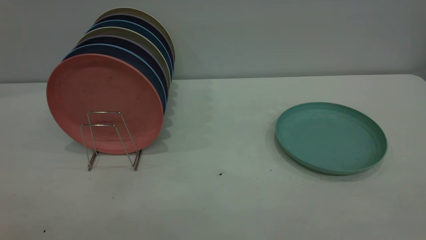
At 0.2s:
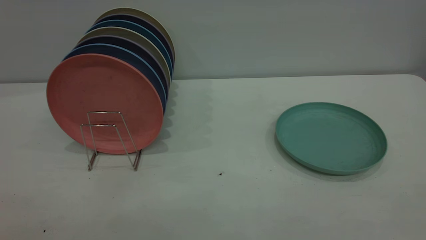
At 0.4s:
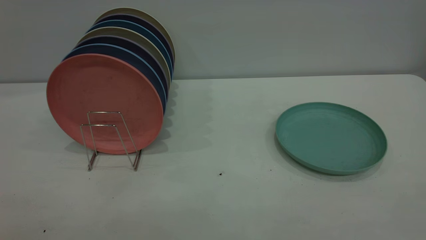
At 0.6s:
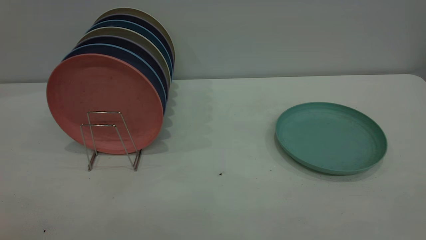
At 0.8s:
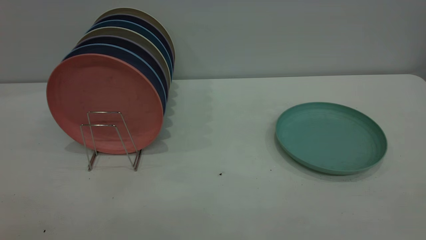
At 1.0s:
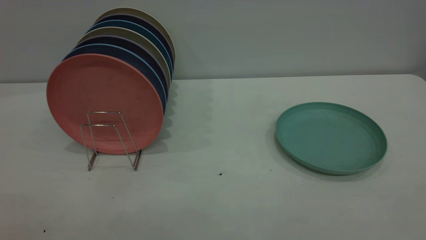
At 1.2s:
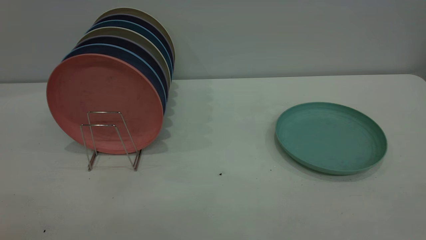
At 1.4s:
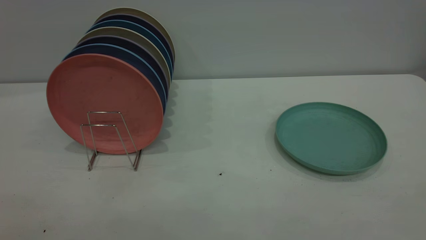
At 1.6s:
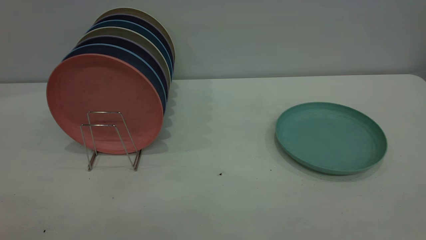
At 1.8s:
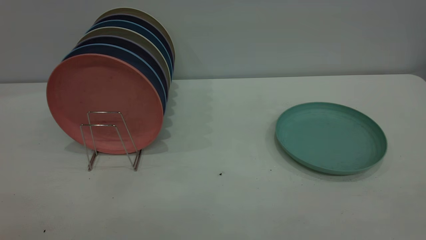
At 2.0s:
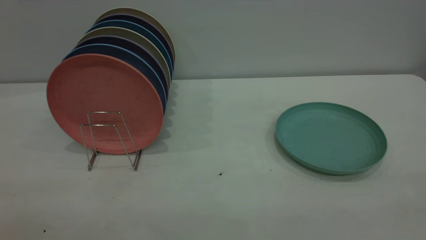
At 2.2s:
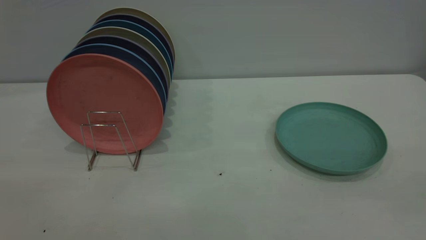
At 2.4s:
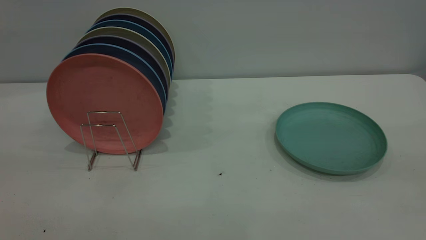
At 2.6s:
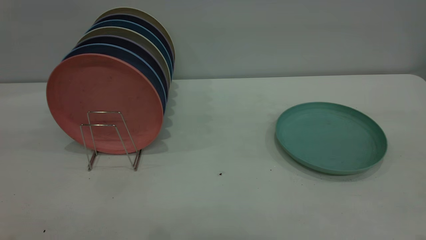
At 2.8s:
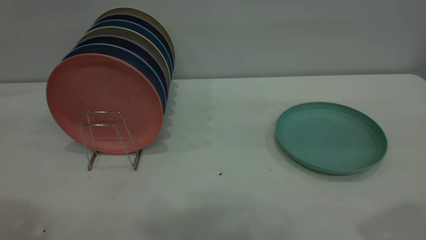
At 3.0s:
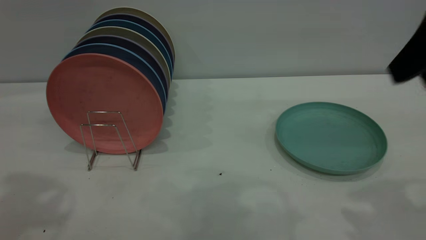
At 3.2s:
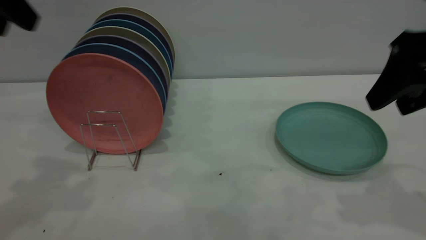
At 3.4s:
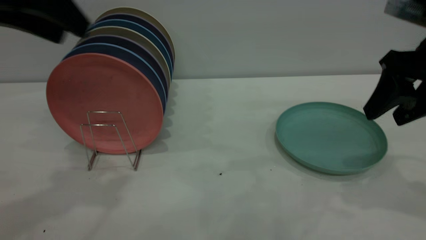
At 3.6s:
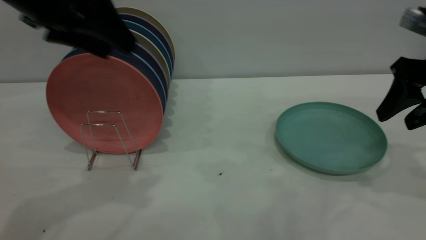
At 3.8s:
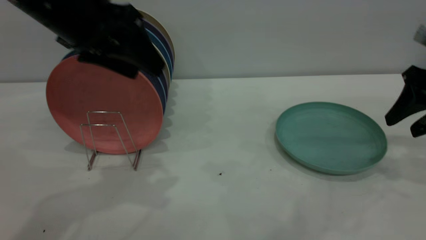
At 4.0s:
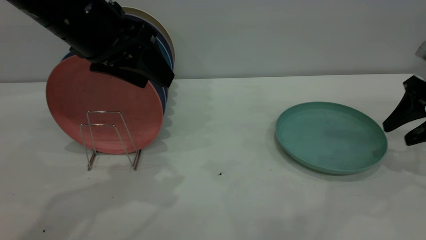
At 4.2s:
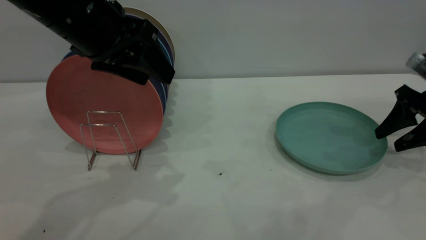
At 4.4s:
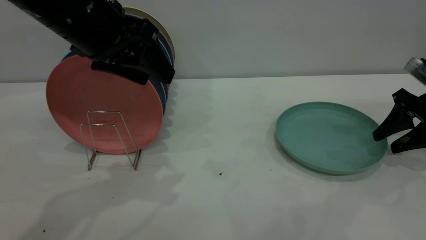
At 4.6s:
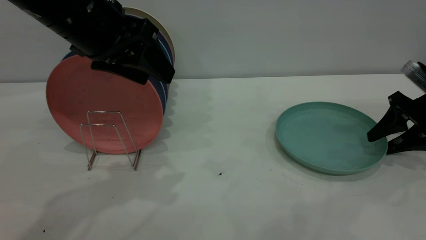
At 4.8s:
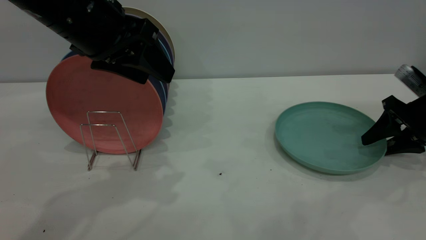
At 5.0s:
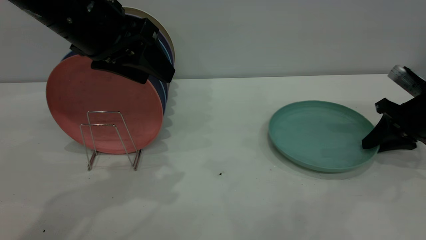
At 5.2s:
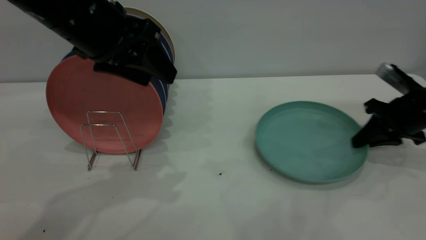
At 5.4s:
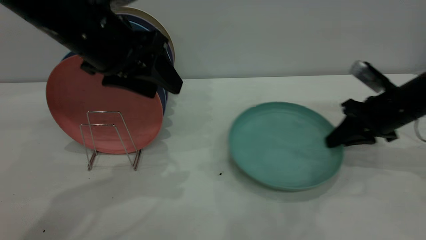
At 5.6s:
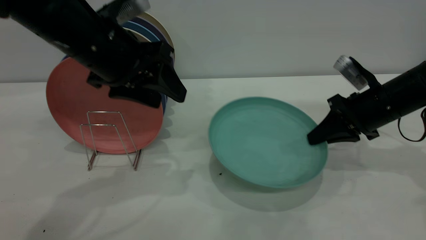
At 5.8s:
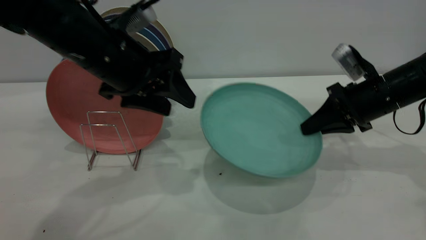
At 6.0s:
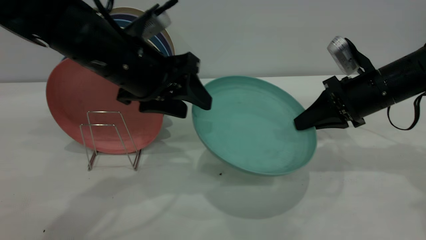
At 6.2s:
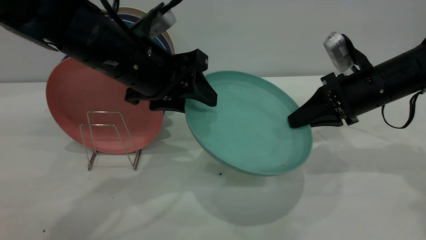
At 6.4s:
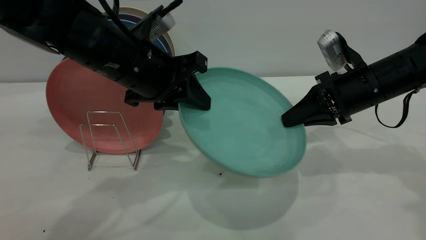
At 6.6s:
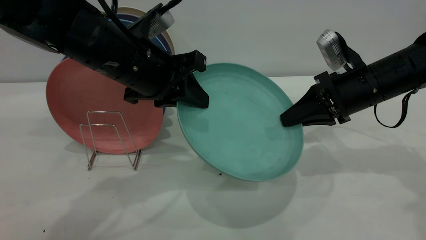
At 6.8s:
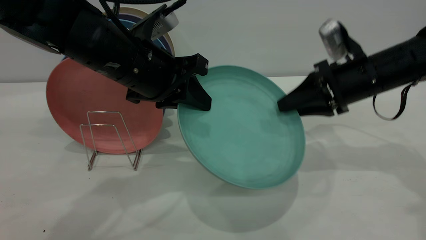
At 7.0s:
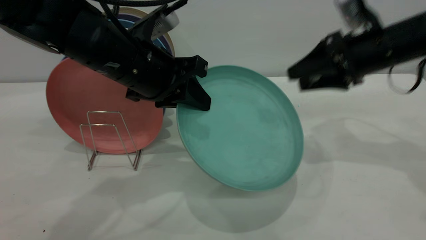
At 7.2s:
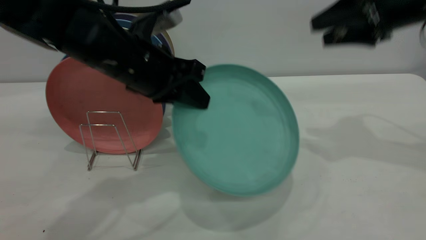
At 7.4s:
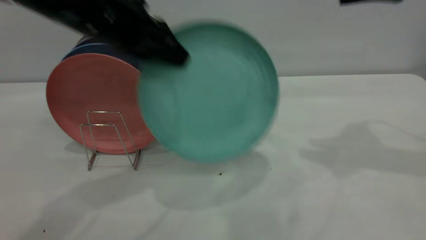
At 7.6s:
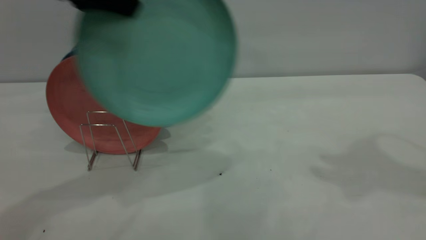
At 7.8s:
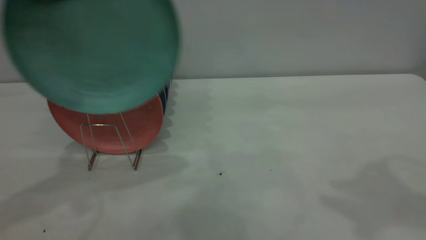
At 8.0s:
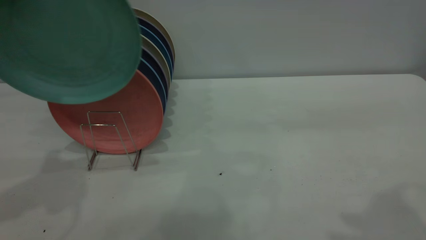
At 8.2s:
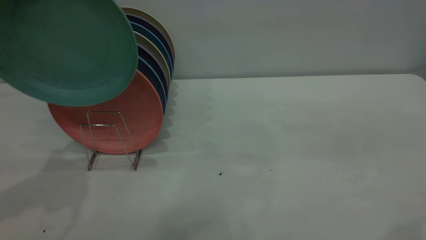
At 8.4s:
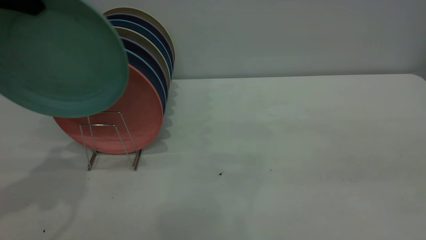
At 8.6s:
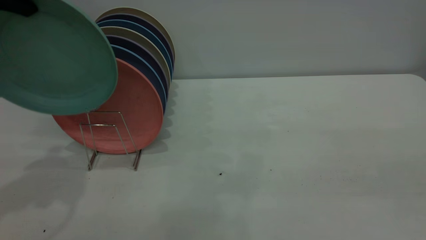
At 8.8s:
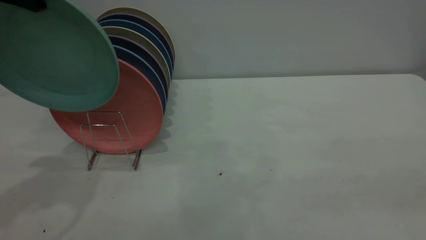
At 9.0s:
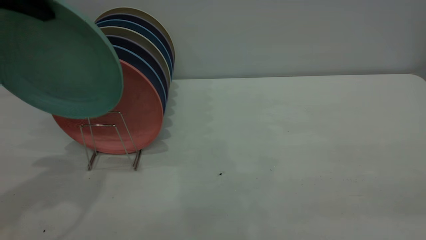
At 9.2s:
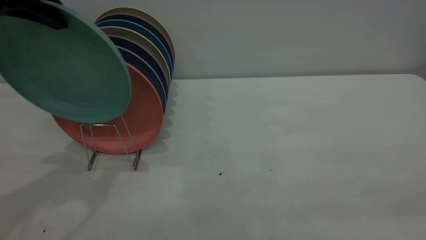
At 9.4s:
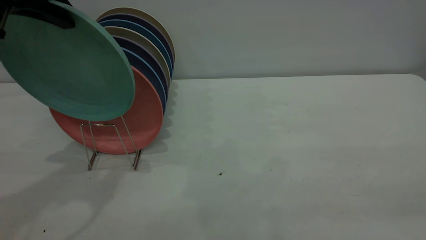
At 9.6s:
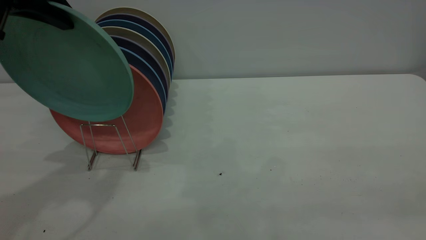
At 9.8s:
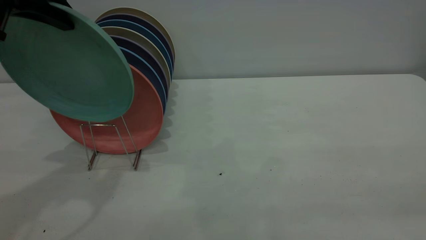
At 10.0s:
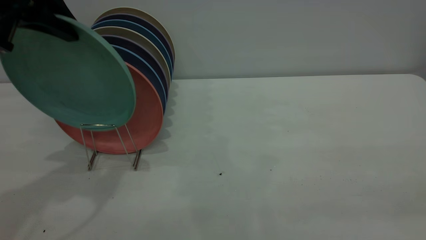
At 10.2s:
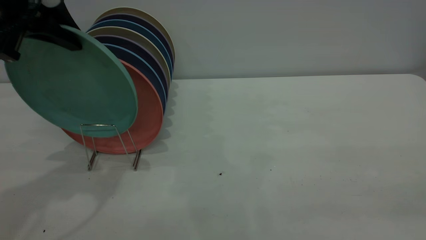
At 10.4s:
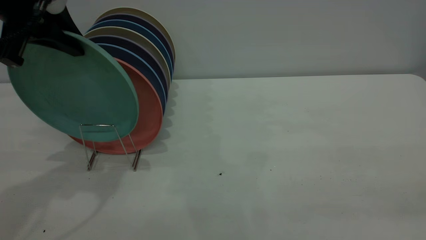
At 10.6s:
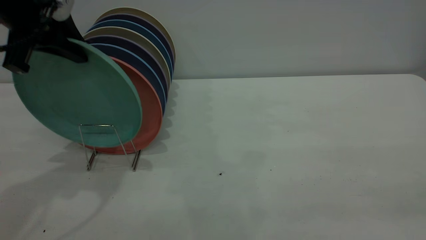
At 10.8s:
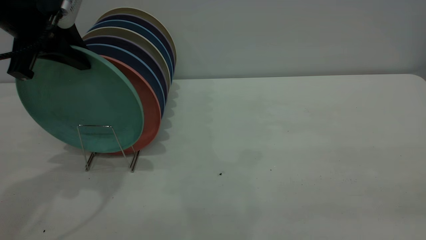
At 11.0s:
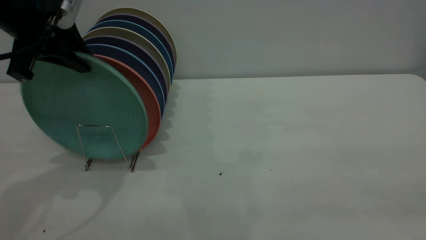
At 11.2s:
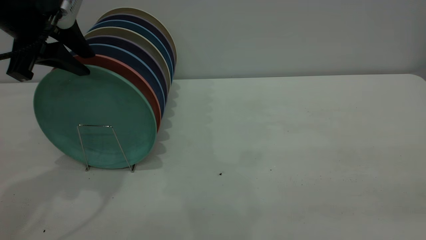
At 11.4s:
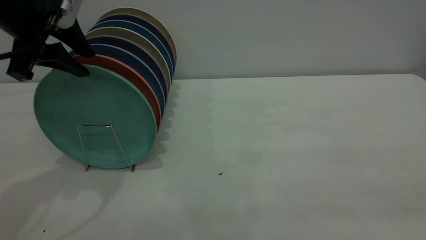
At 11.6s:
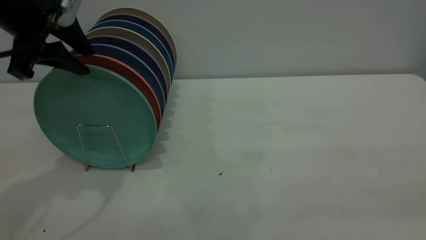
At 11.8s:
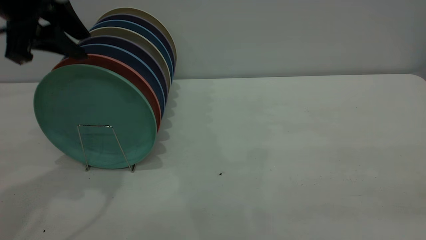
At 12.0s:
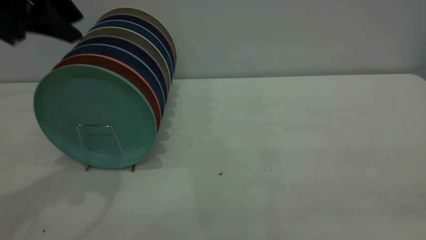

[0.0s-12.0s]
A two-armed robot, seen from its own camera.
Task of the whole recording: the right gripper grasp the green plate, the right gripper pass the green plate to the left gripper, and the left gripper place the green plate on the plate rack.
Step, 0.0s to 5.4s: Pick up the plate with the right gripper.
Step, 5.6s to 7.6s: Pass the plate from the right gripper to the left gripper.
0.0s to 1.6s: Both grippers stay put.
1.6s to 3.0s: The right gripper shifts about 25 cm forward, and opens.
3.0s to 4.4s: The left gripper travels to the right, downward and forward by approximately 15 cm; the right gripper goes approximately 25 cm downward, forward and to the right.
4.4s to 6.0s: The left gripper heads downward, covering approximately 5 cm. Meanwhile the right gripper goes roughly 15 cm to the left, and closes up.
6.0s to 7.6s: The left gripper moves upward and to the left, approximately 15 cm, and closes its fingers; the right gripper is displaced upward by about 25 cm, and opens its fingers.
7.6s to 9.0s: The right gripper goes about 25 cm backward. Meanwhile the left gripper shifts approximately 5 cm to the left.
9.0s to 10.4s: The left gripper ends up some 5 cm from where it was.
10.4s to 12.0s: The left gripper opens its fingers.

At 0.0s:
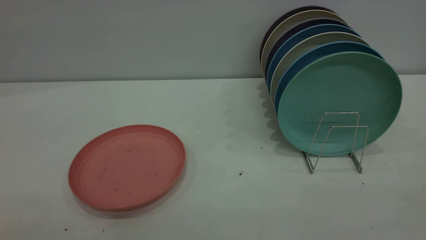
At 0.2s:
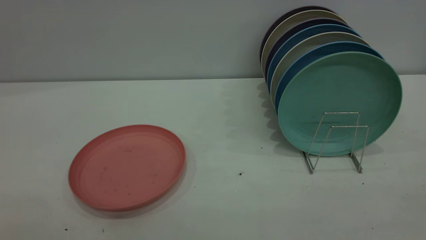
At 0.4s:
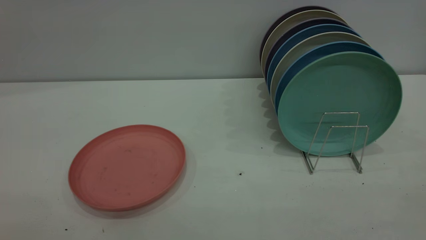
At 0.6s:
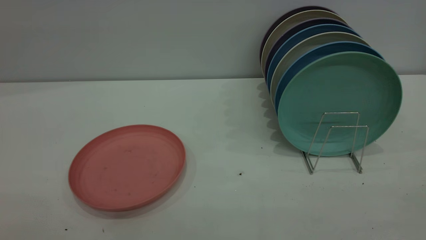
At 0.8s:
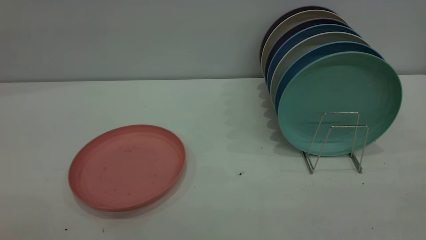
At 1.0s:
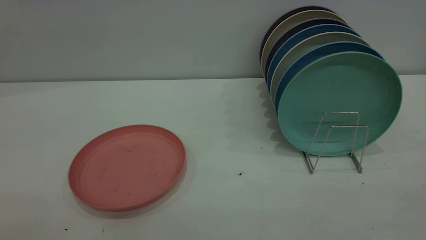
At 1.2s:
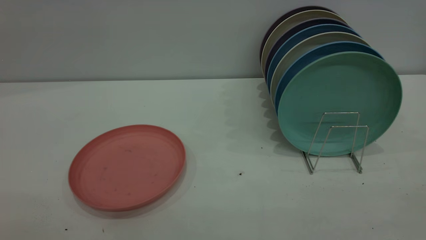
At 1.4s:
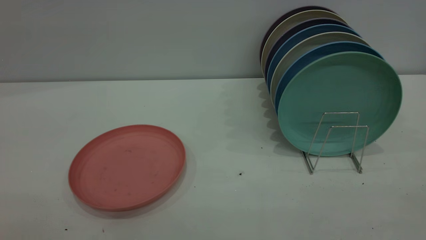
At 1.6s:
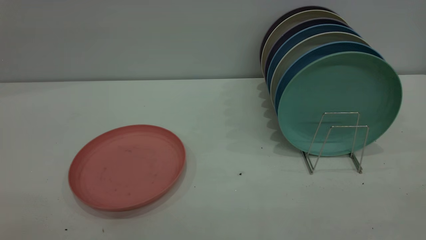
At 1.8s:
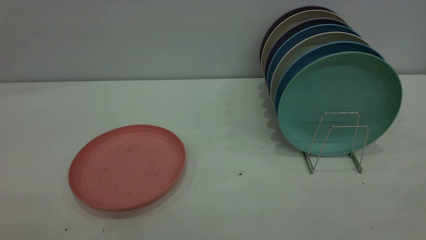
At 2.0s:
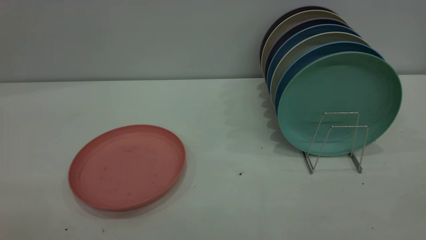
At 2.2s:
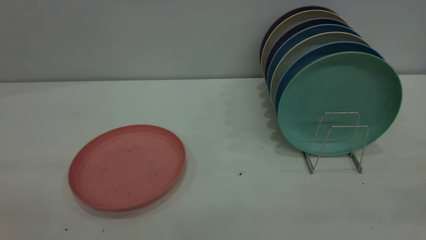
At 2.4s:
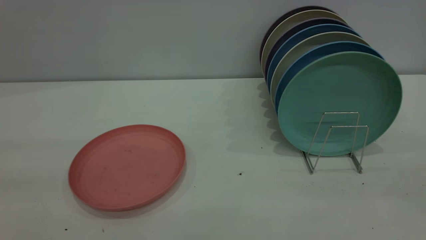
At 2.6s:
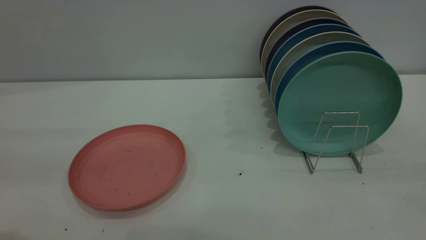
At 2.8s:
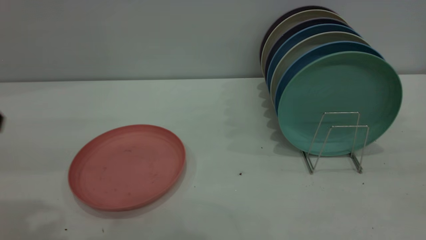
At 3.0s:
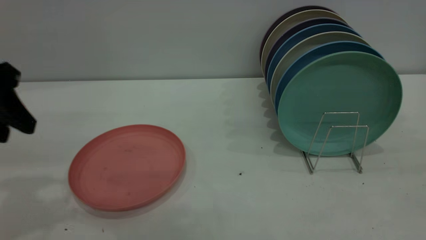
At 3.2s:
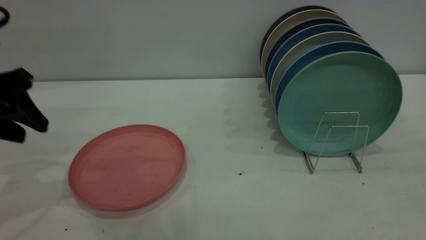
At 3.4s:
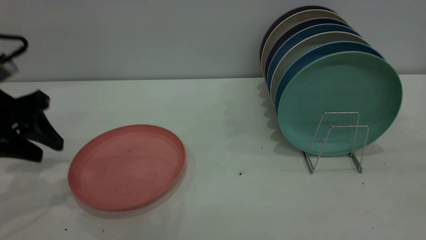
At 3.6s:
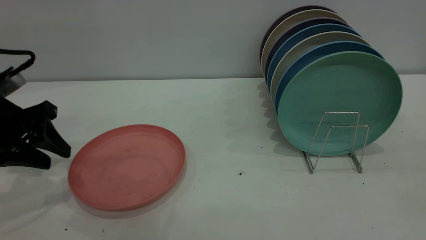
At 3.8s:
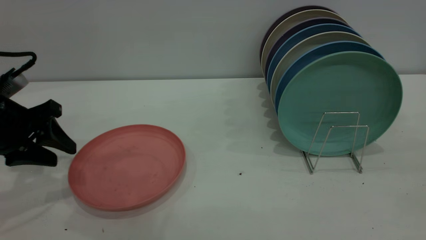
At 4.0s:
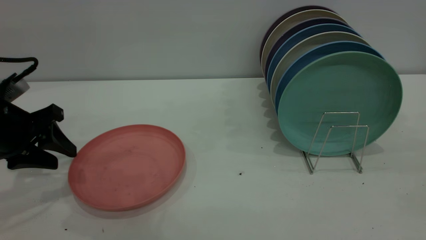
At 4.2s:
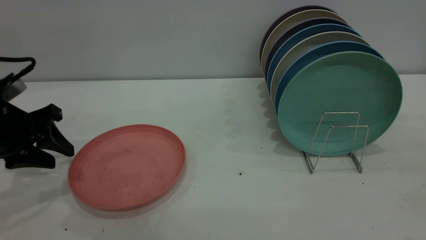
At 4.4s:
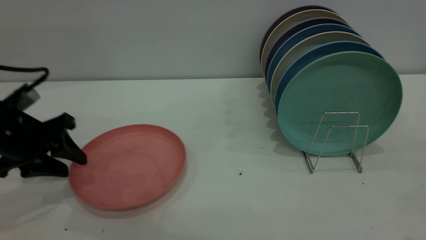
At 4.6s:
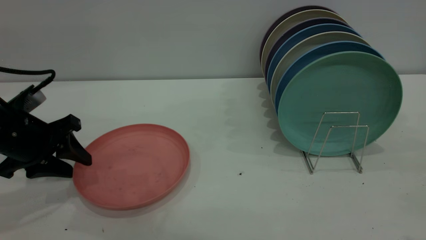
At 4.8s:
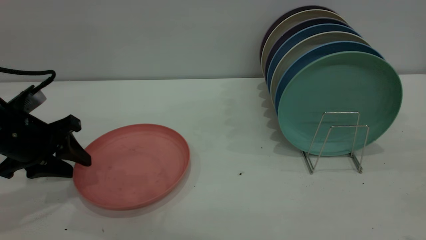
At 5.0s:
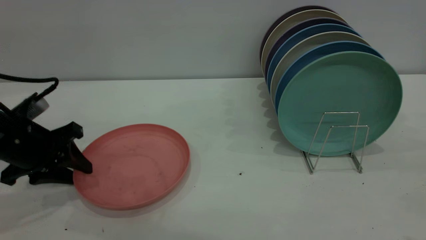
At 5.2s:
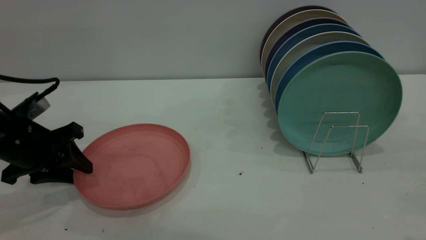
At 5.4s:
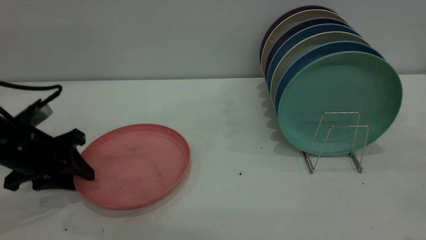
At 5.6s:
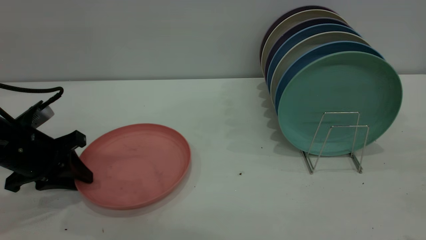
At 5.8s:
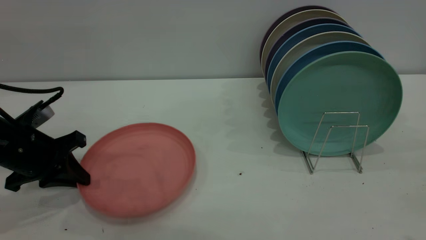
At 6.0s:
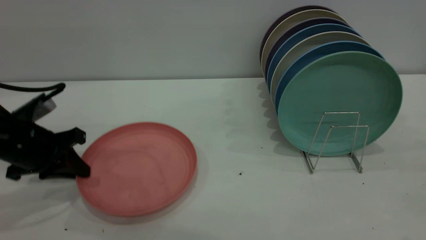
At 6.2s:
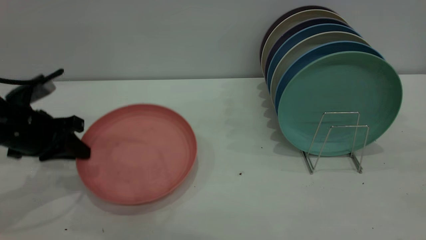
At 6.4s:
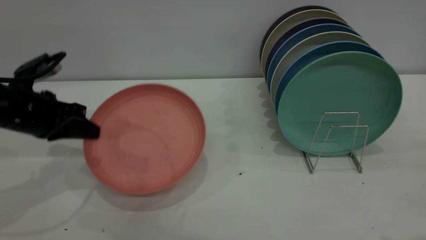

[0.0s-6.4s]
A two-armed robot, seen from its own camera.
Task of the whole recording: put the plate on the plate rack.
Step, 0.0s to 6.2s: Pick up the plate with the left gripper.
0.0s to 1.6s: The two grippers keep their place.
1.6s to 3.2s: The left gripper shifts about 35 cm forward and downward.
3.2s to 4.8s: The left gripper heads downward, covering about 10 cm.
4.8s to 6.4s: The left gripper closes its fingers.
